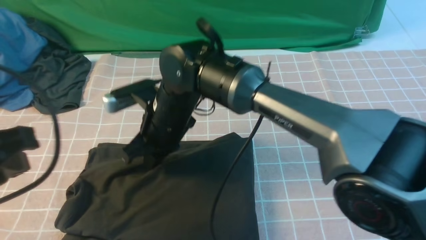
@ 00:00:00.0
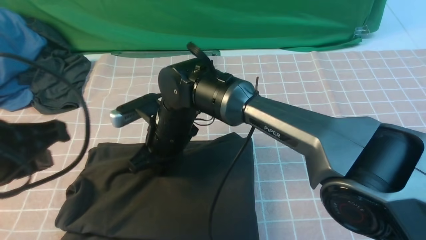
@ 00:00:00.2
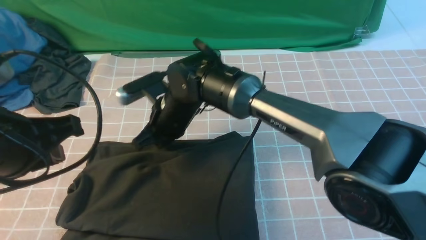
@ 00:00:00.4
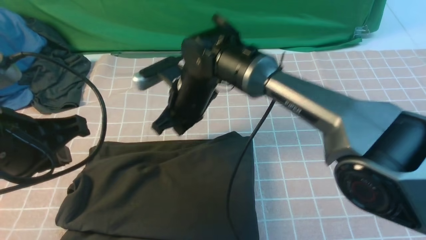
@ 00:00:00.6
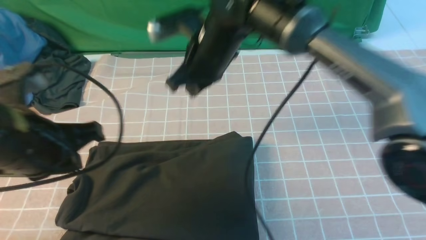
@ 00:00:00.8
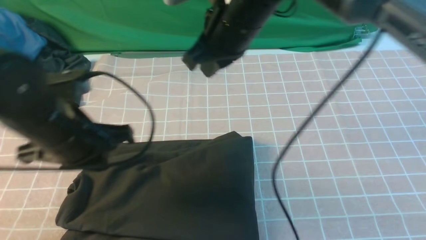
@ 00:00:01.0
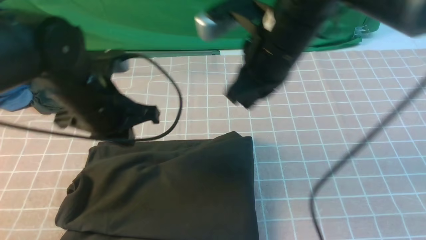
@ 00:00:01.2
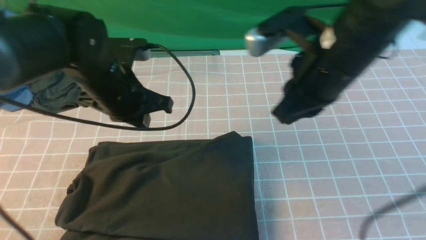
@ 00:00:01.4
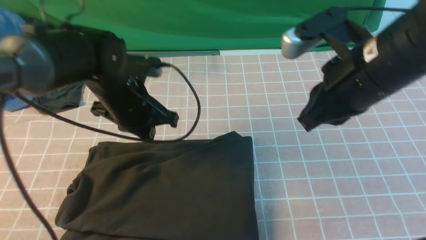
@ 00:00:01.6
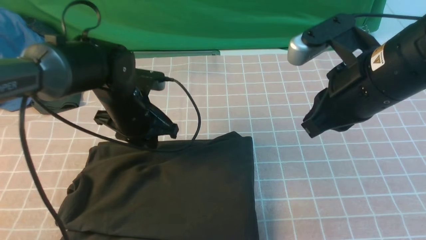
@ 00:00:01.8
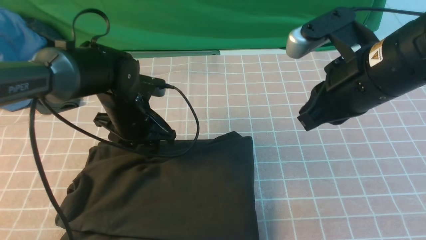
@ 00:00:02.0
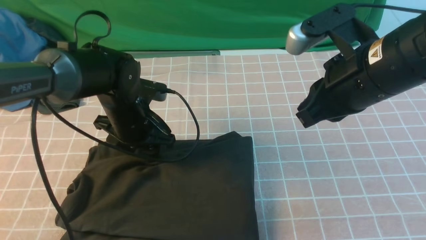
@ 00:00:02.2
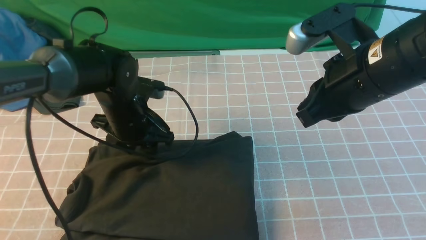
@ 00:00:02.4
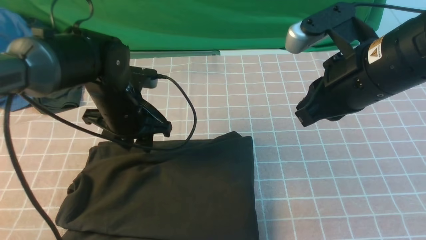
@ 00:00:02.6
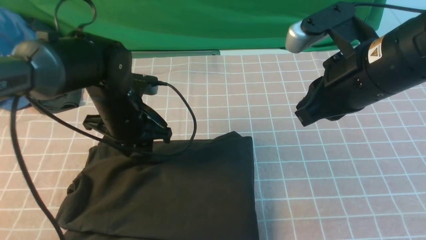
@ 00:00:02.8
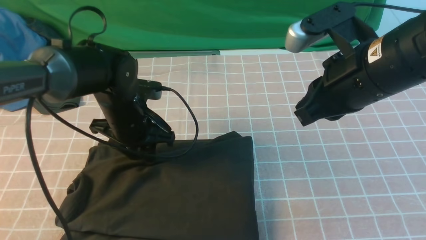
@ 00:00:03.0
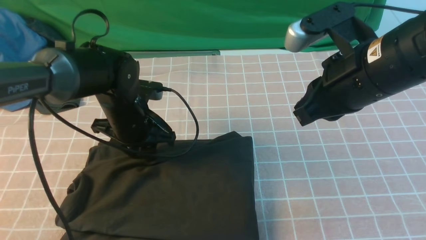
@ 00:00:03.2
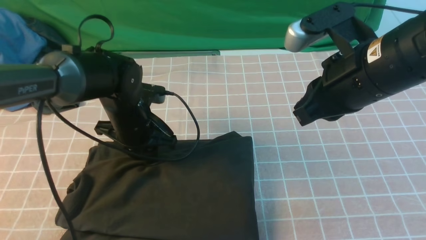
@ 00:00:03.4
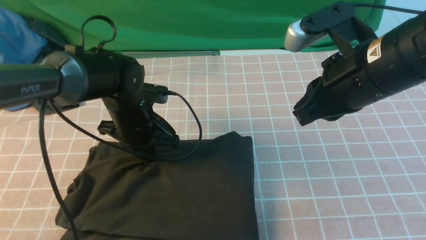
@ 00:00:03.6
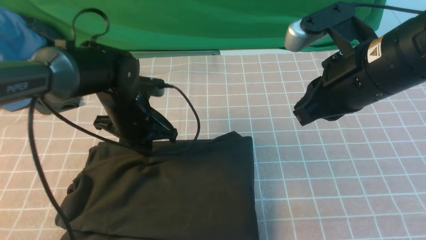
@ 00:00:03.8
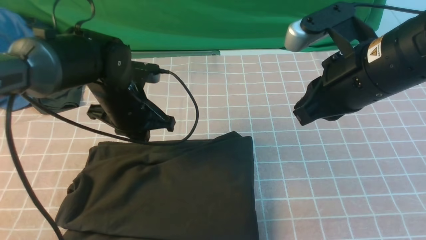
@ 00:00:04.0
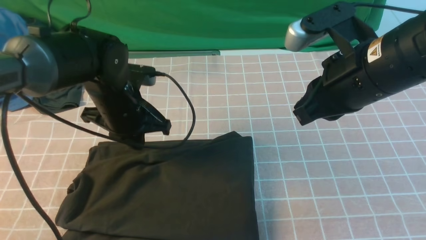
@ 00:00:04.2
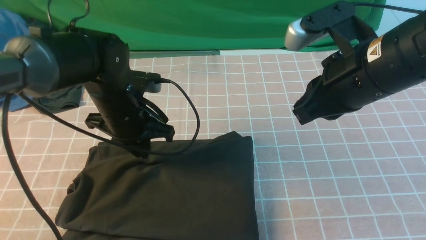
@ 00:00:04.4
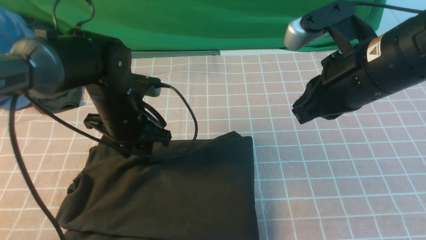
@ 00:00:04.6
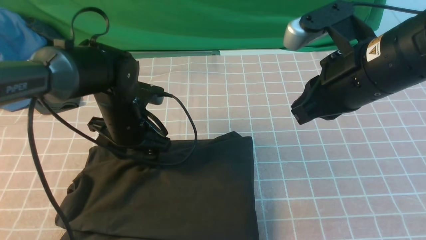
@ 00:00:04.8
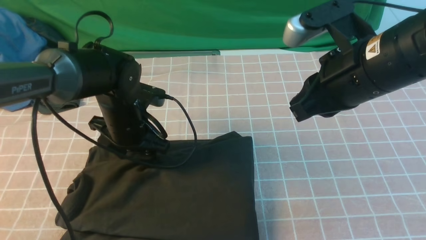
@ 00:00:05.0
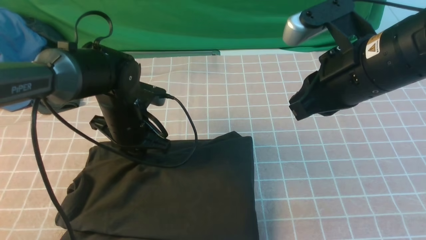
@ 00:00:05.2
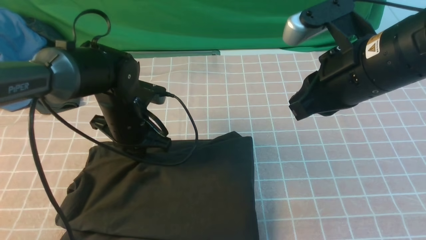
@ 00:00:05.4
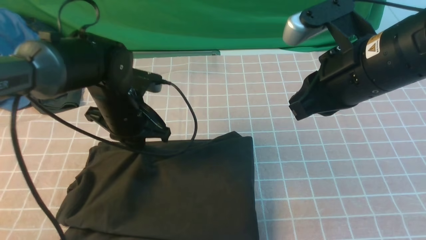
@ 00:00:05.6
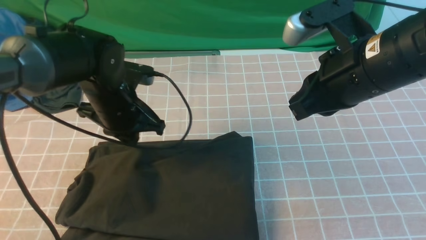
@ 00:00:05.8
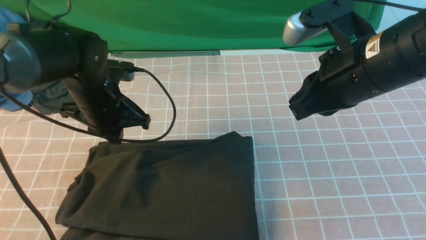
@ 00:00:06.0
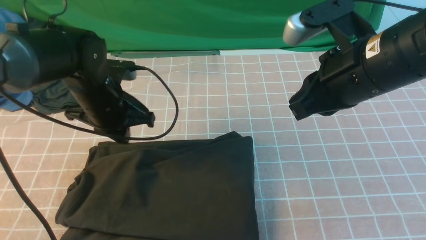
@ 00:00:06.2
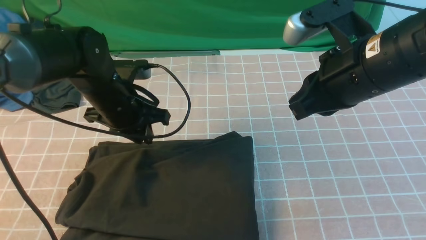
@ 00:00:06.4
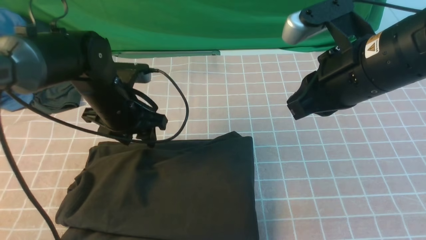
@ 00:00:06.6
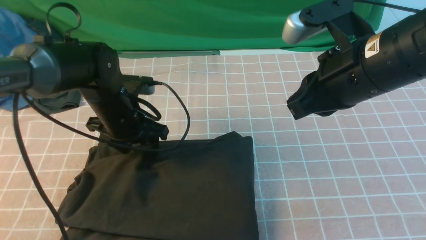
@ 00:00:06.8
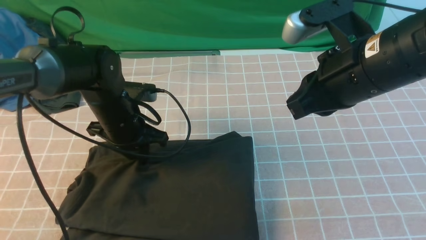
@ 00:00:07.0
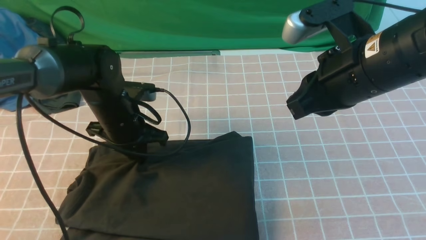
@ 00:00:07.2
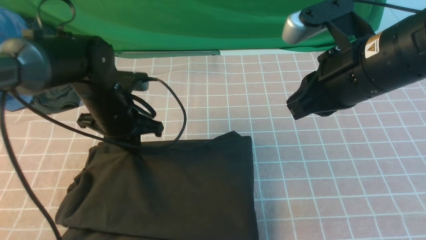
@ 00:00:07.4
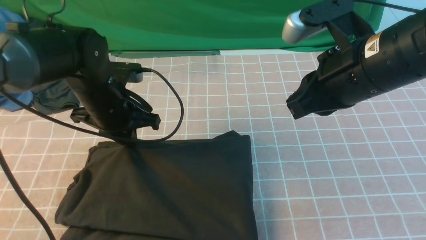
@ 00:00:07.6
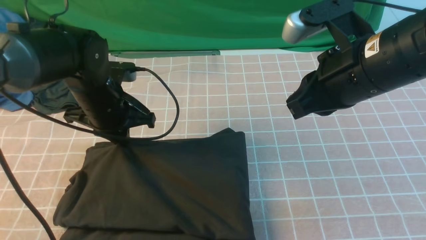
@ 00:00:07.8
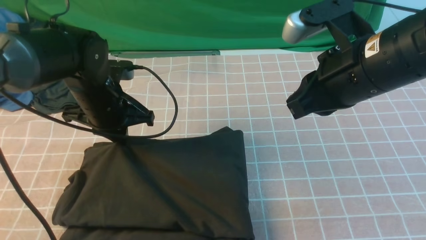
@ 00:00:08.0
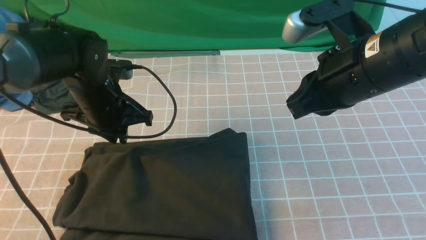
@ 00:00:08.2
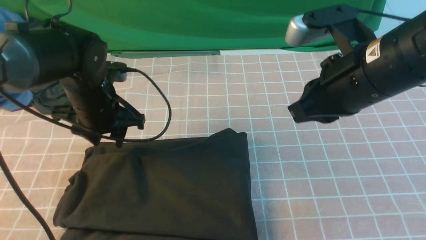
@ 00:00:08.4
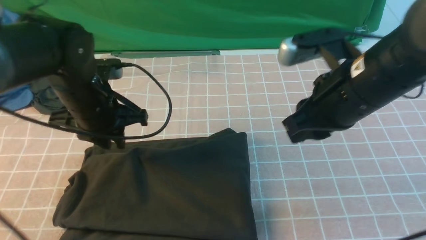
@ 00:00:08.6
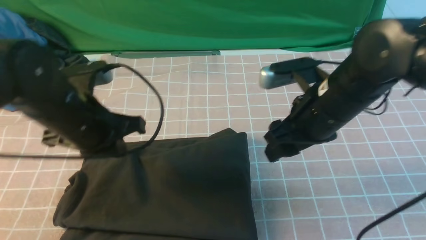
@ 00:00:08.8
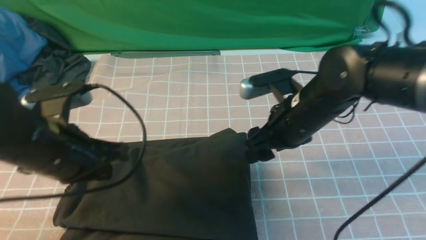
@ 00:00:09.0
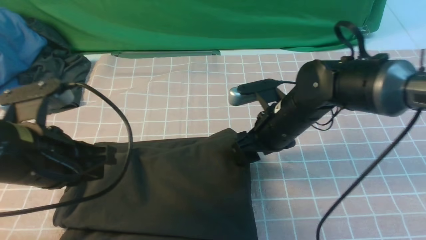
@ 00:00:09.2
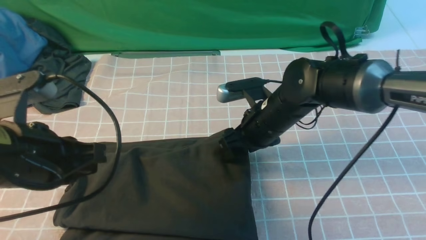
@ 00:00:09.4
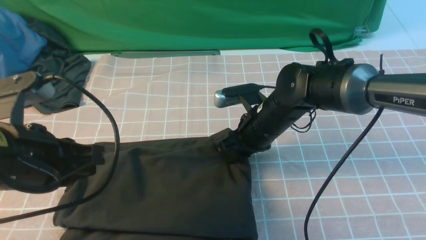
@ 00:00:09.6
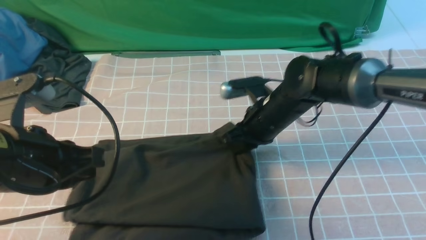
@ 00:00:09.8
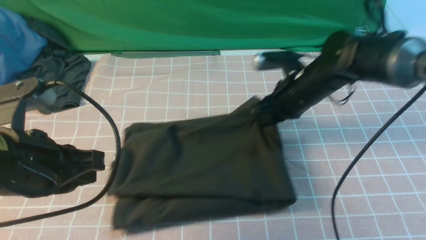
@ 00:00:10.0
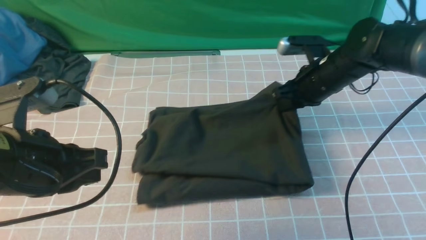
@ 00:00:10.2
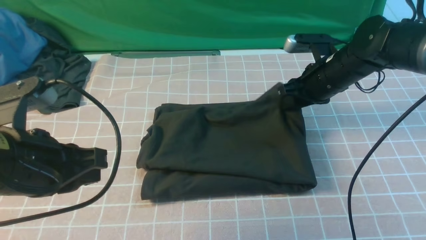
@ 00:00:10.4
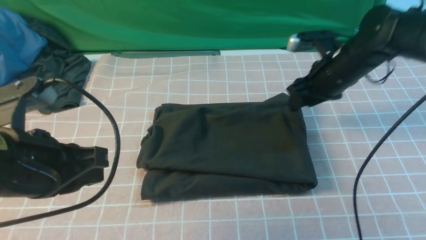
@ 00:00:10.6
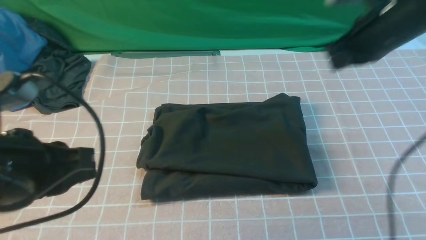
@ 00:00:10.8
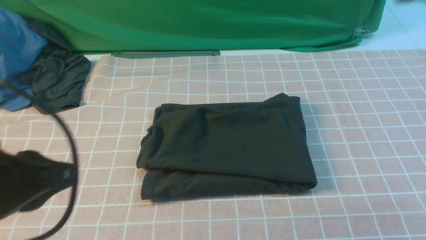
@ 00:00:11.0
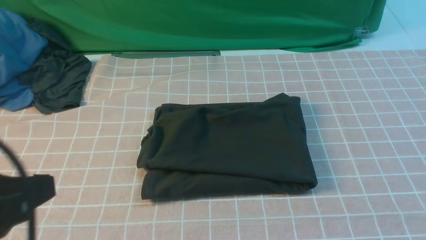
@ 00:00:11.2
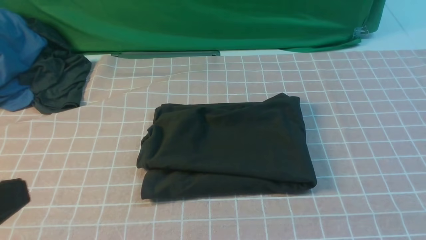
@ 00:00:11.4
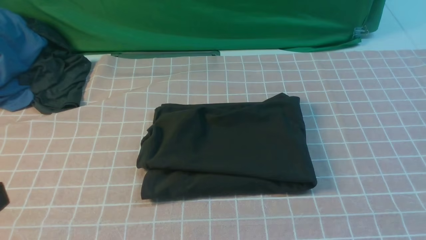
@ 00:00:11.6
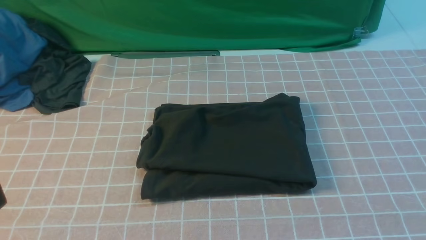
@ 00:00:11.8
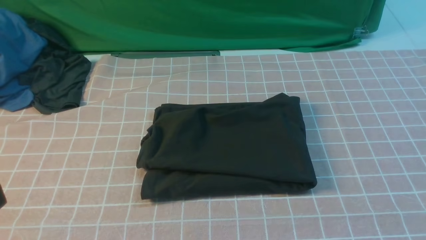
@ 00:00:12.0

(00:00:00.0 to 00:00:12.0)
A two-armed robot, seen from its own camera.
00:00:00.0 - 00:00:01.6: The left gripper moves forward and downward, approximately 25 cm. The right gripper is displaced to the right and upward by roughly 25 cm.
00:00:01.6 - 00:00:03.0: The left gripper opens.
00:00:03.0 - 00:00:04.4: The left gripper closes.
00:00:04.4 - 00:00:06.0: The left gripper opens and closes again.
00:00:06.0 - 00:00:07.6: The left gripper opens, then closes once more.
00:00:07.6 - 00:00:09.0: The left gripper travels backward and upward by some 15 cm, and opens, then closes again; the right gripper travels downward and forward by some 15 cm, and opens.
00:00:09.0 - 00:00:10.4: The right gripper is displaced forward and to the right by about 10 cm, and closes up. The left gripper is displaced backward by about 5 cm.
00:00:10.4 - 00:00:12.0: The left gripper goes approximately 15 cm backward; the right gripper heads backward, covering roughly 40 cm, and closes.

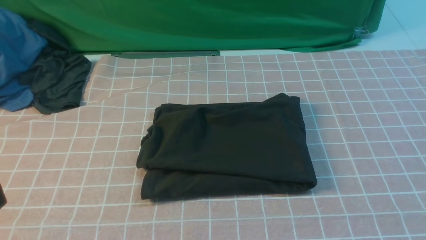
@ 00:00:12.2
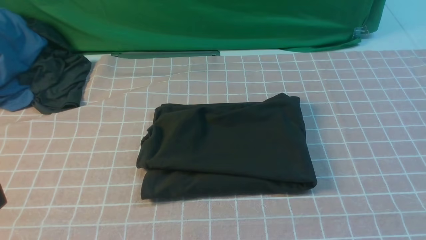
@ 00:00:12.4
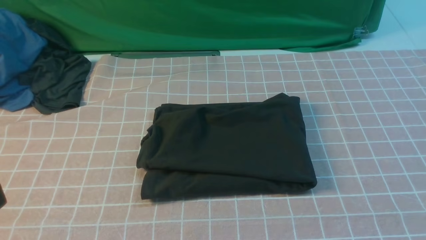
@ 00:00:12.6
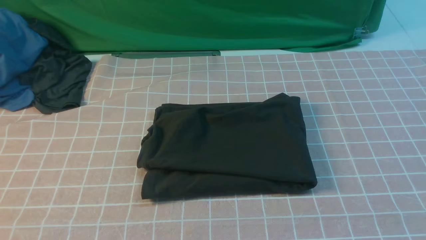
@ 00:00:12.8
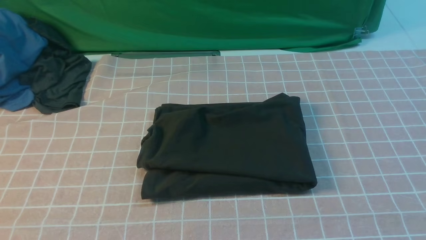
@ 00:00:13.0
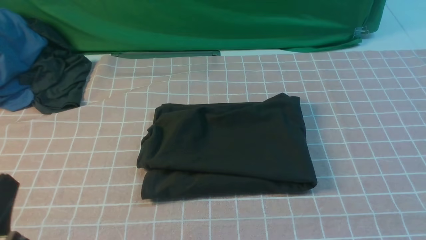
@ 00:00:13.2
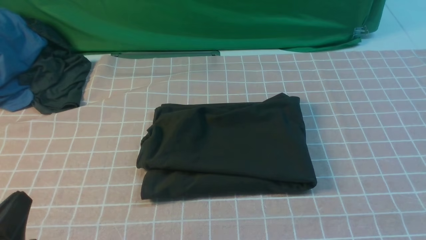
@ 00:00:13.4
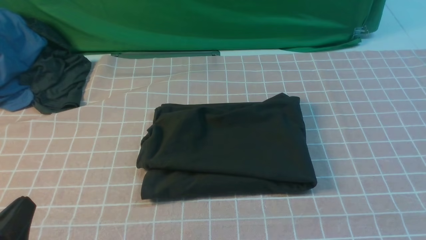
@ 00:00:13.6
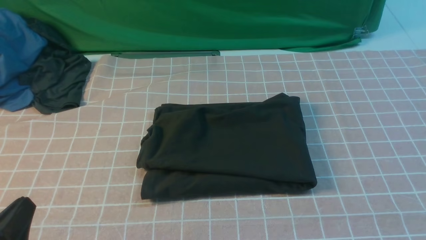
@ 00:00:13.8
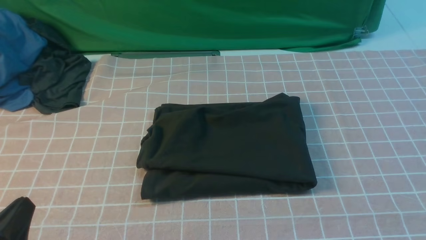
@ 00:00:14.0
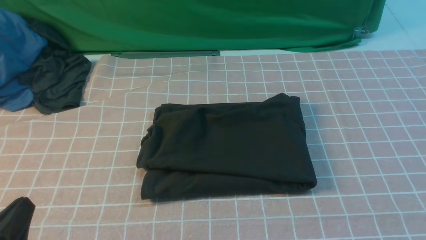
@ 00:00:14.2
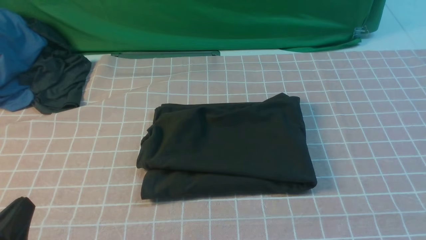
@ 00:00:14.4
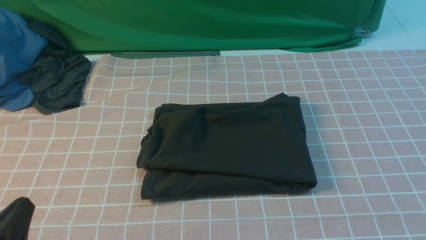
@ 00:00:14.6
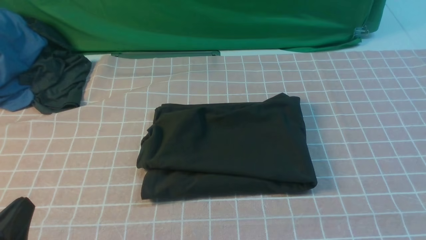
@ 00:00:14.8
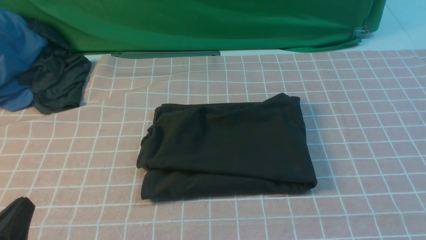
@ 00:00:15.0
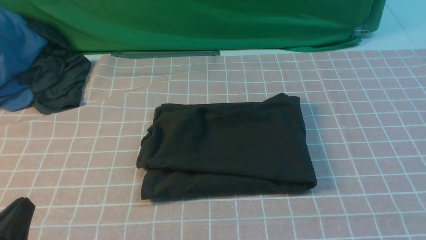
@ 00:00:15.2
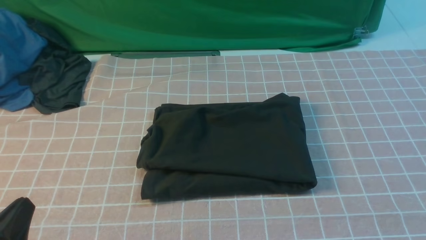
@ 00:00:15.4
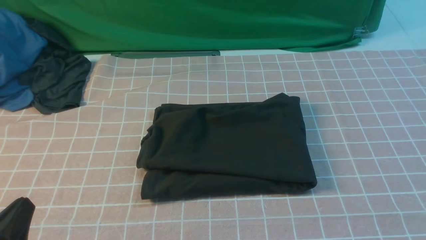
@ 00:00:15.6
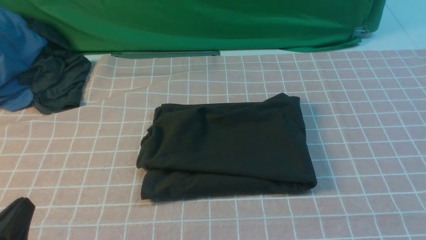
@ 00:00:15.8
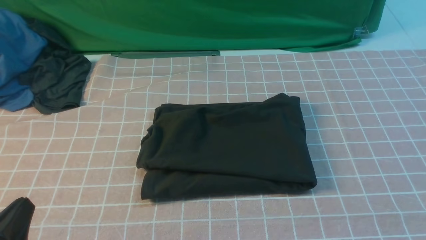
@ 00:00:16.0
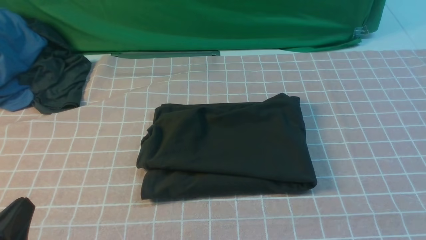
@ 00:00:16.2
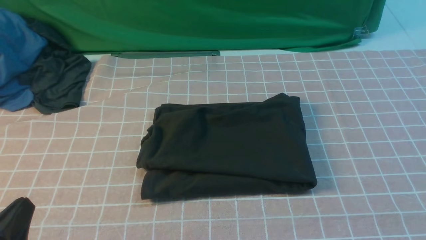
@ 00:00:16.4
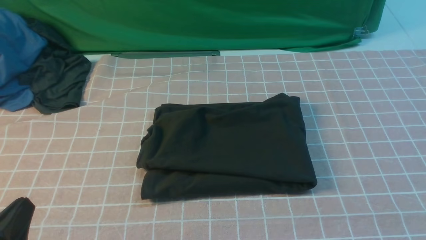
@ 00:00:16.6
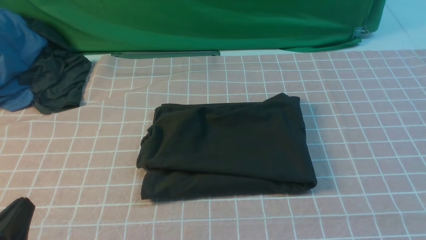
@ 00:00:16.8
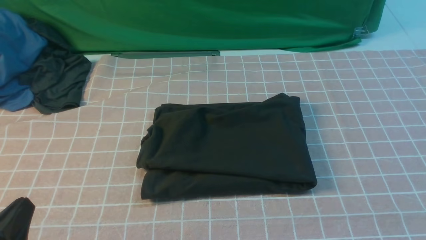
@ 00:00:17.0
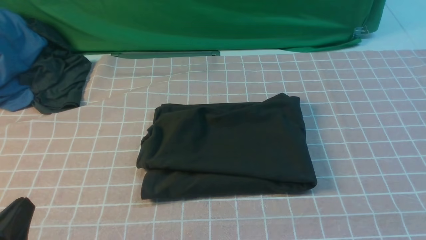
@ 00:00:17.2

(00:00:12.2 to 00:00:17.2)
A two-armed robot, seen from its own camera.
00:00:12.2 - 00:00:13.8: The left gripper is displaced downward by some 15 cm.
00:00:15.6 - 00:00:17.2: Both grippers stay put.
